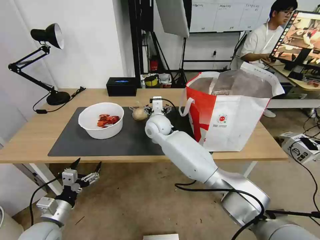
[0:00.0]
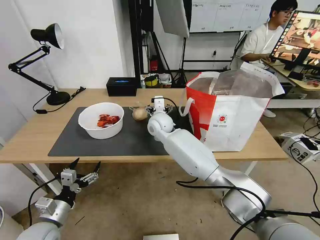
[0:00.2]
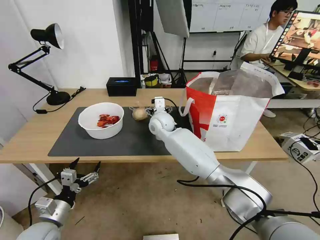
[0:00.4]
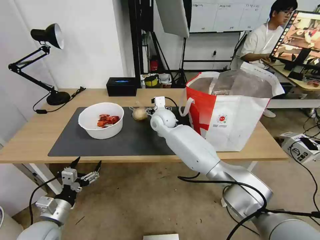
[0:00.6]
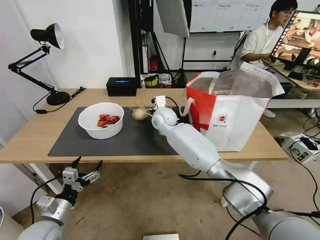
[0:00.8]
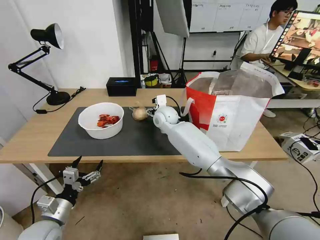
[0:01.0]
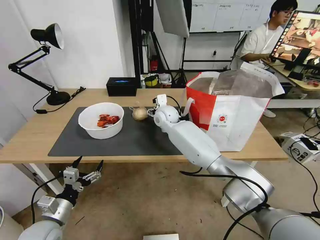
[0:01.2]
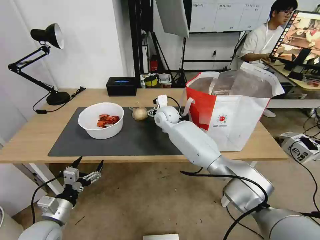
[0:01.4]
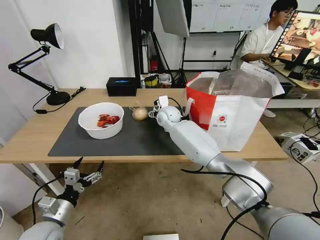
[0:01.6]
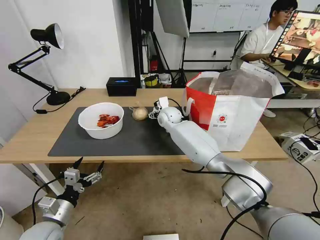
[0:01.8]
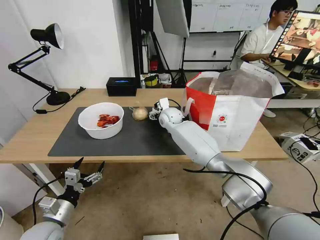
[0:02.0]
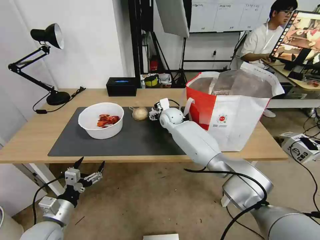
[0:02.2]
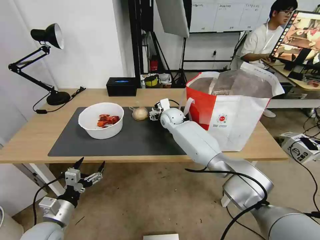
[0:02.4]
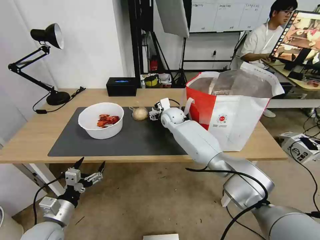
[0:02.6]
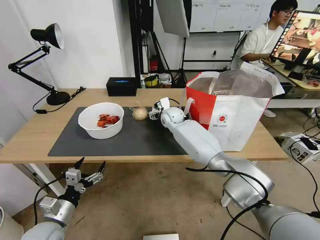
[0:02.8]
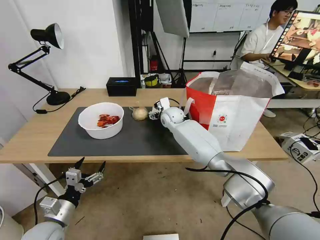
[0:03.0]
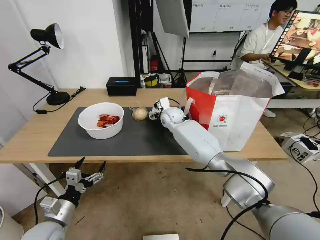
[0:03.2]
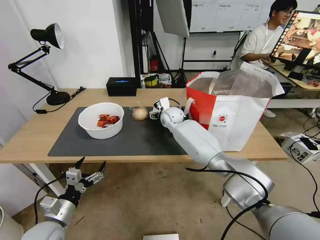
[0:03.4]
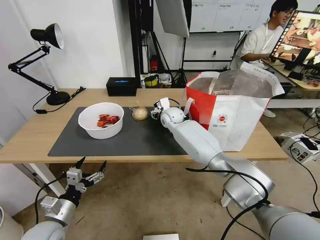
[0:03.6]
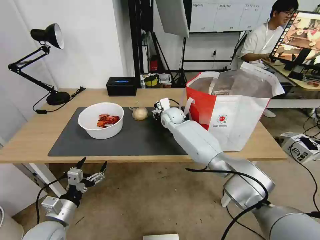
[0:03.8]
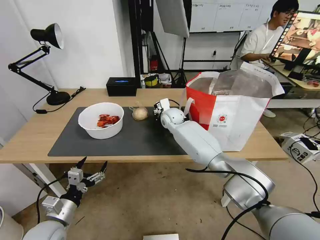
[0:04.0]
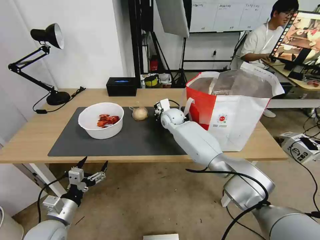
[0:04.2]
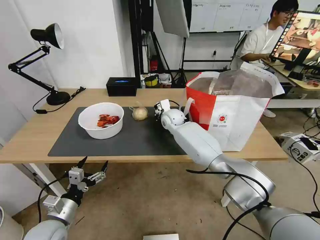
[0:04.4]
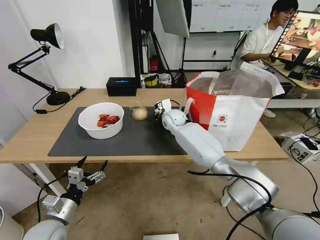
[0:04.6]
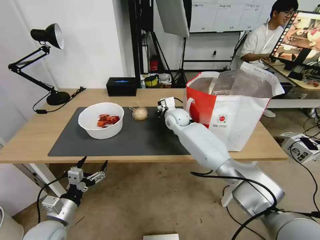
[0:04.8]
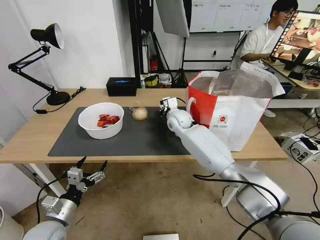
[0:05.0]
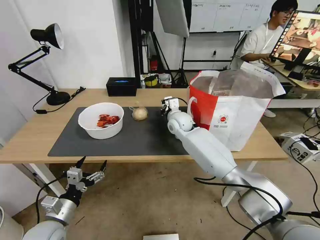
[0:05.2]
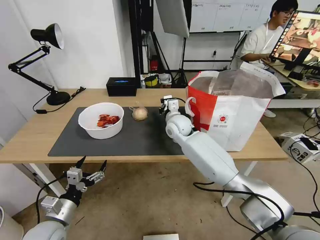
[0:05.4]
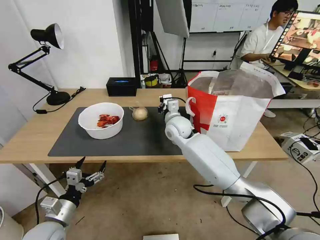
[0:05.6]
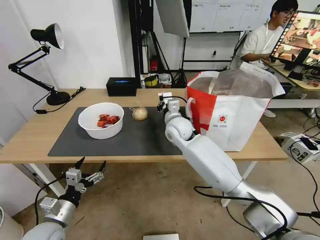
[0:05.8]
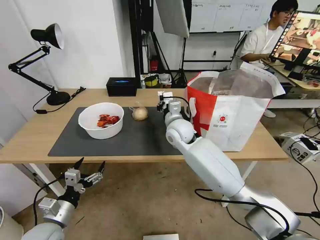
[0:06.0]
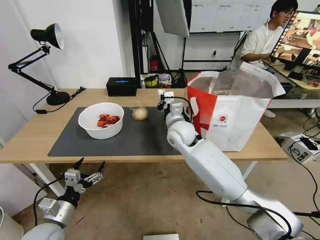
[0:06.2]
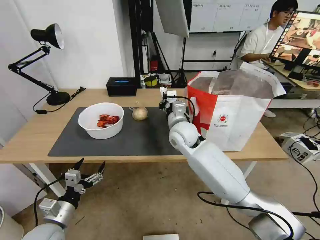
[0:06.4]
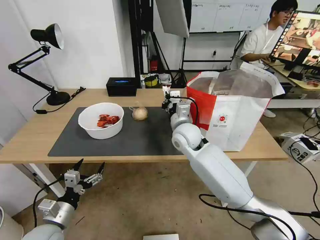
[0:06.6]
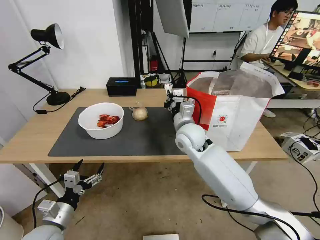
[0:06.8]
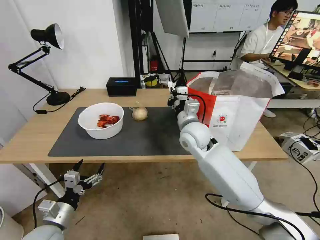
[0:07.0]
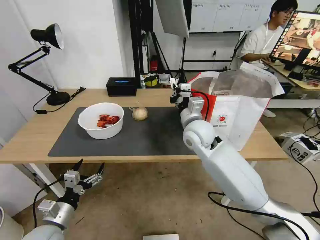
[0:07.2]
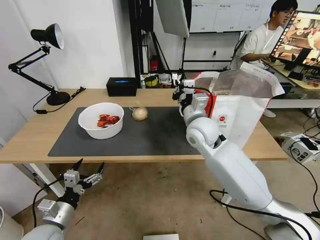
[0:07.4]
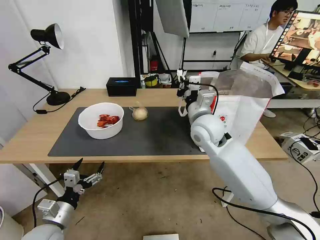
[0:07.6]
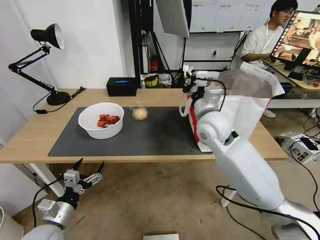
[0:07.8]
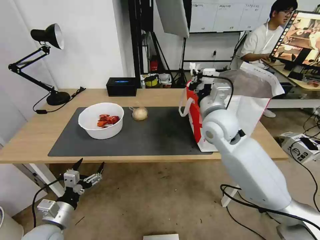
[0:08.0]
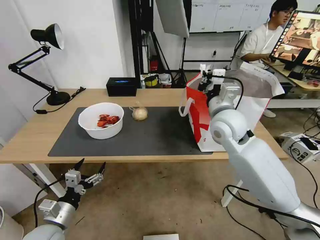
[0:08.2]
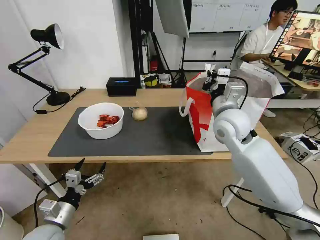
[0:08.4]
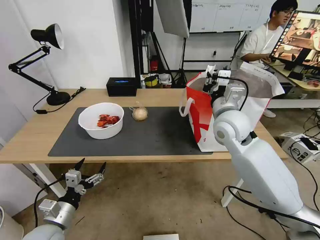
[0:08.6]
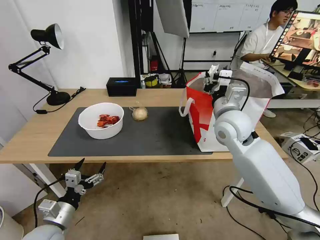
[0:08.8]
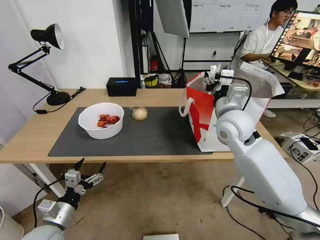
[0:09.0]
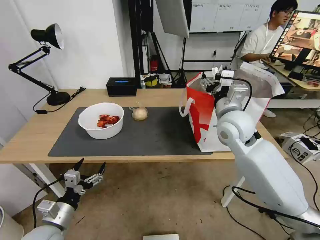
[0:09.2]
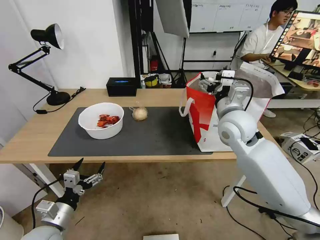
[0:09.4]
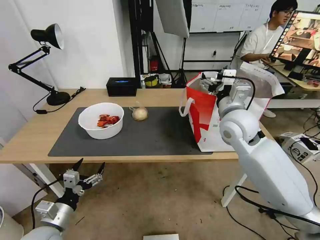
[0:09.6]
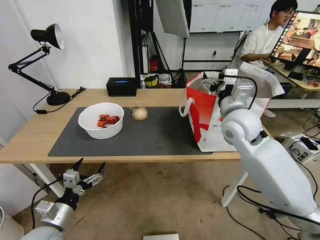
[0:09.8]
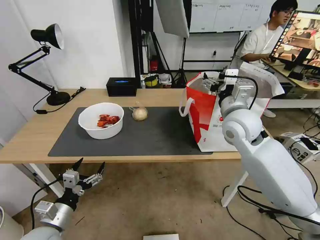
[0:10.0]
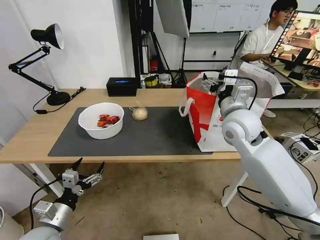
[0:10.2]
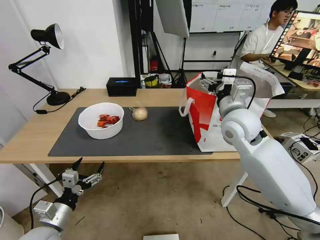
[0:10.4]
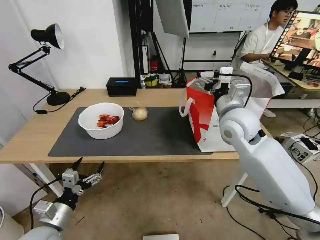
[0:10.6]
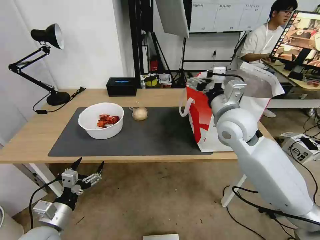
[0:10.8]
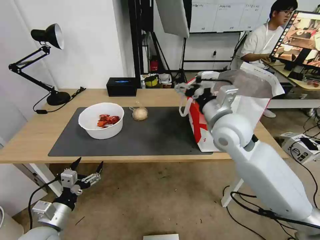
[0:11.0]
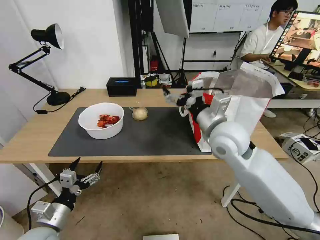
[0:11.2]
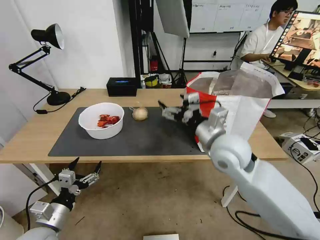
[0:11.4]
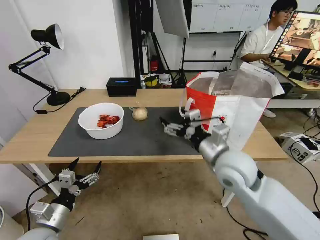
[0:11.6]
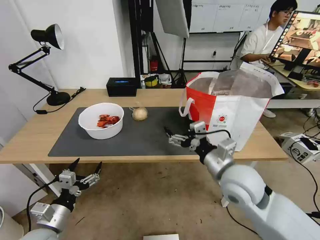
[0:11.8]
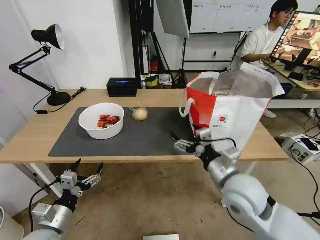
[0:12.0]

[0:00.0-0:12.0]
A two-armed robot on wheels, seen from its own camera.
Task of the whole recording: Pick up the trash from the table and place it into the takeout bag.
0:00.0 to 0:01.6: The right gripper travels forward by approximately 5 cm.
0:01.6 to 0:03.0: The grippers make only small movements.
0:03.0 to 0:04.4: The right gripper closes.
0:04.4 to 0:06.0: The right gripper heads backward, covering some 10 cm.
0:06.0 to 0:07.6: The right gripper shifts approximately 10 cm to the right and upward.
0:07.6 to 0:09.0: The right gripper heads to the right, covering approximately 5 cm, and opens.
0:09.0 to 0:10.4: The right gripper opens.
0:10.4 to 0:12.0: The right gripper moves backward and downward, roughly 20 cm.

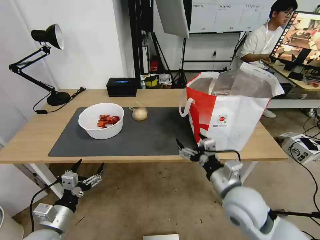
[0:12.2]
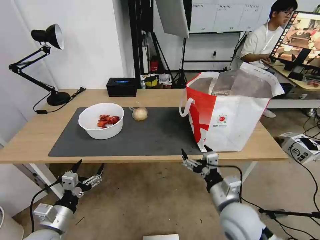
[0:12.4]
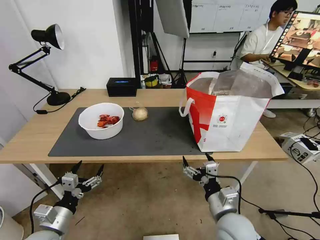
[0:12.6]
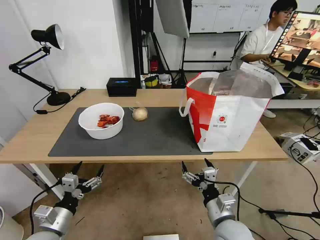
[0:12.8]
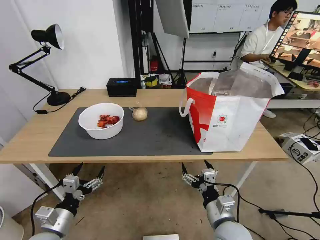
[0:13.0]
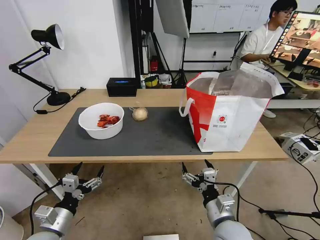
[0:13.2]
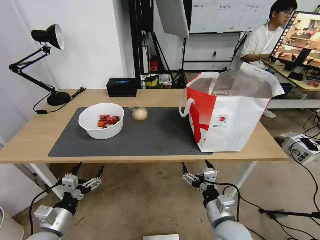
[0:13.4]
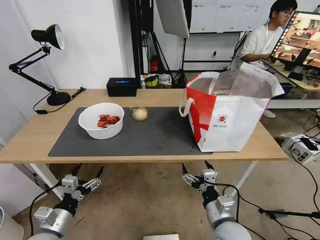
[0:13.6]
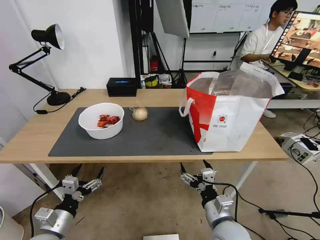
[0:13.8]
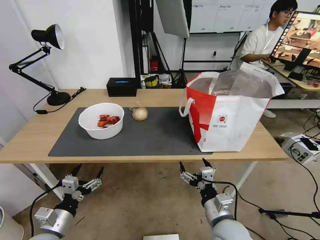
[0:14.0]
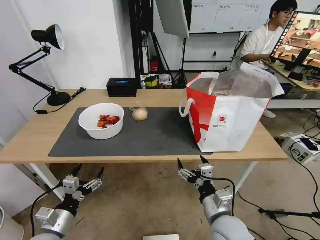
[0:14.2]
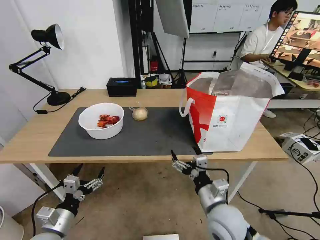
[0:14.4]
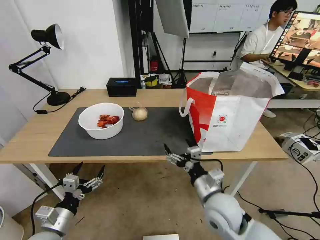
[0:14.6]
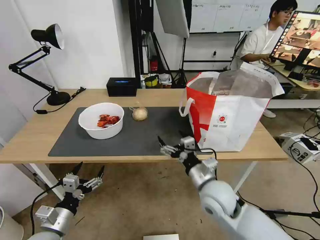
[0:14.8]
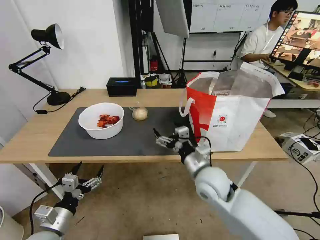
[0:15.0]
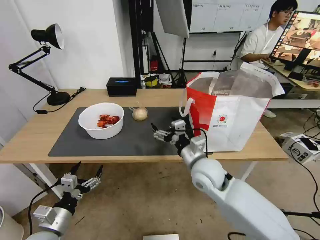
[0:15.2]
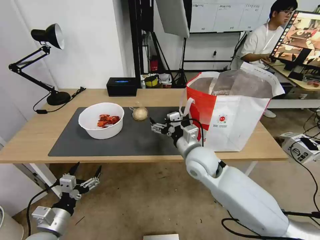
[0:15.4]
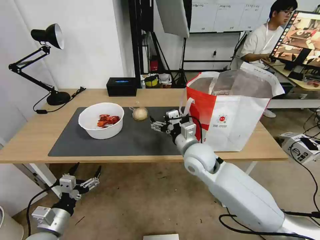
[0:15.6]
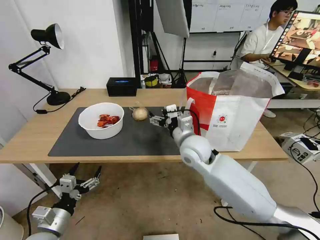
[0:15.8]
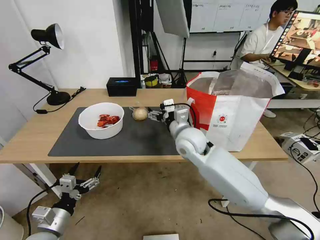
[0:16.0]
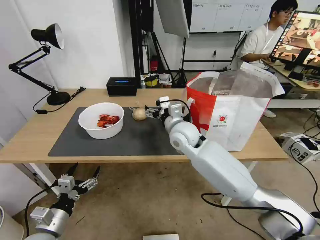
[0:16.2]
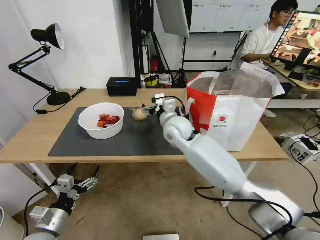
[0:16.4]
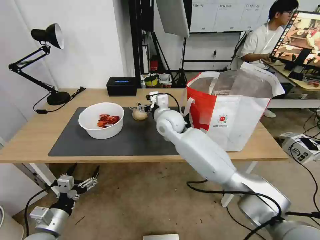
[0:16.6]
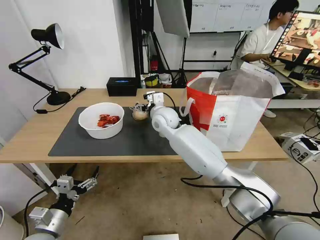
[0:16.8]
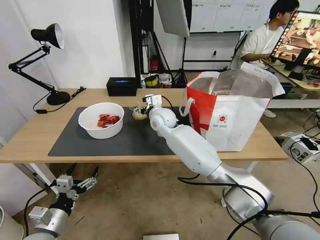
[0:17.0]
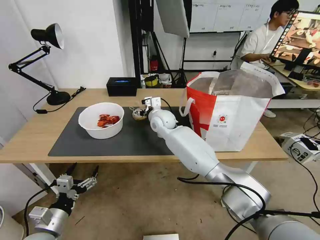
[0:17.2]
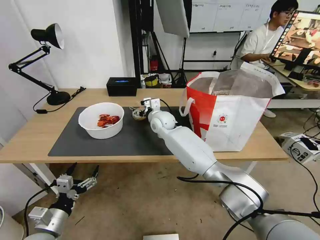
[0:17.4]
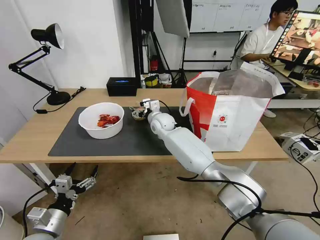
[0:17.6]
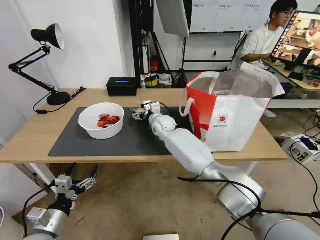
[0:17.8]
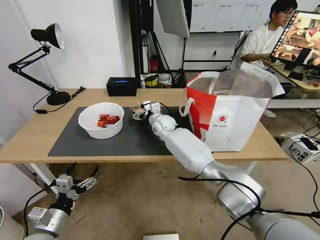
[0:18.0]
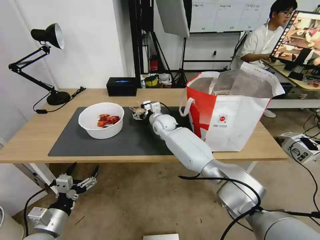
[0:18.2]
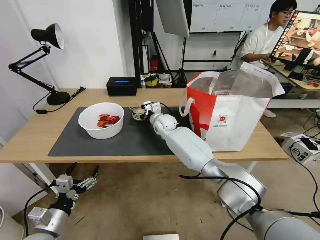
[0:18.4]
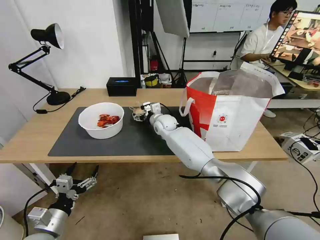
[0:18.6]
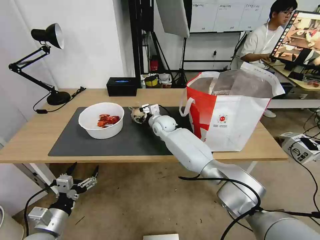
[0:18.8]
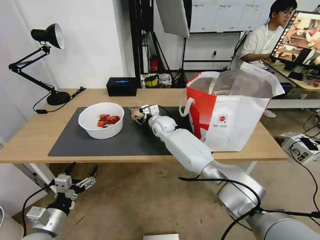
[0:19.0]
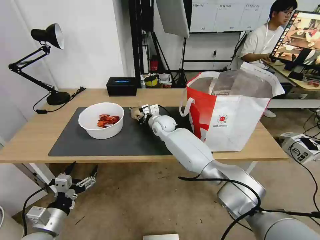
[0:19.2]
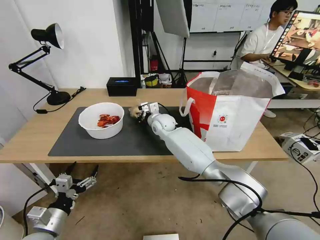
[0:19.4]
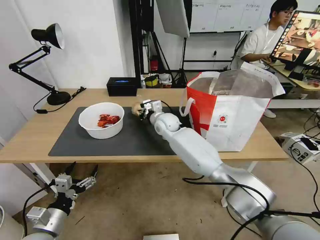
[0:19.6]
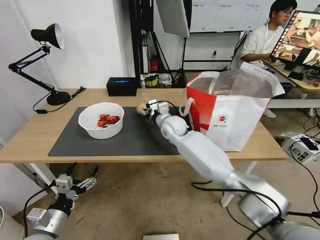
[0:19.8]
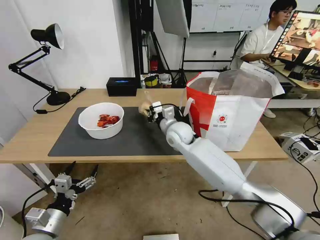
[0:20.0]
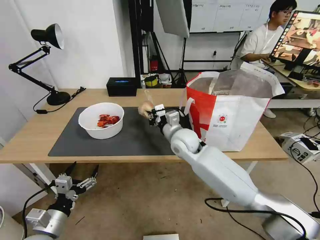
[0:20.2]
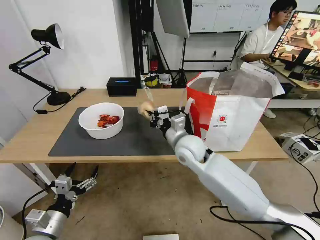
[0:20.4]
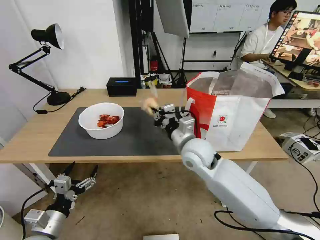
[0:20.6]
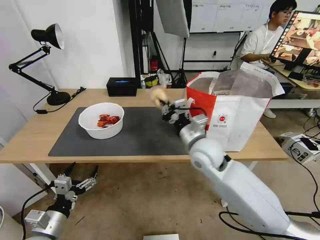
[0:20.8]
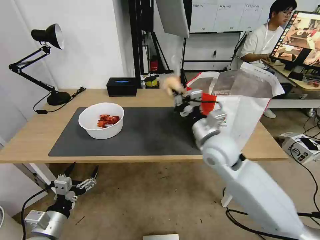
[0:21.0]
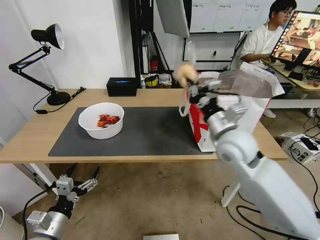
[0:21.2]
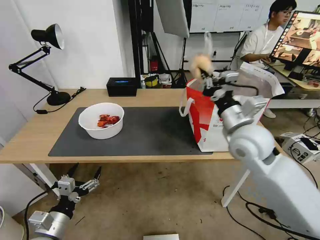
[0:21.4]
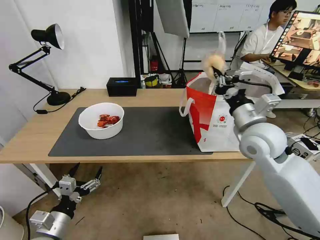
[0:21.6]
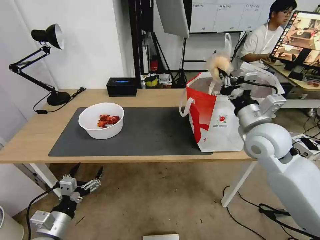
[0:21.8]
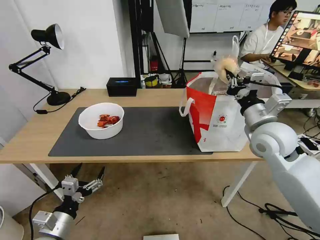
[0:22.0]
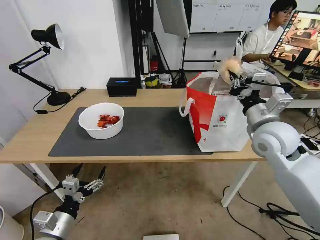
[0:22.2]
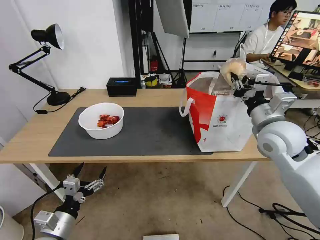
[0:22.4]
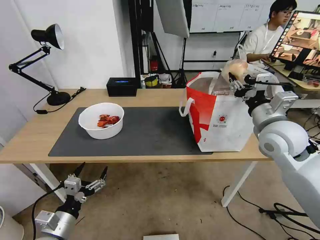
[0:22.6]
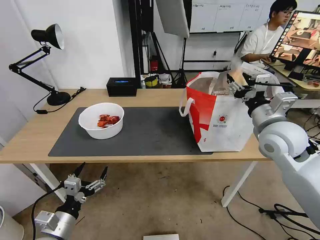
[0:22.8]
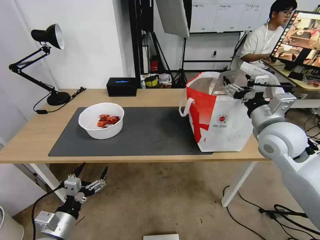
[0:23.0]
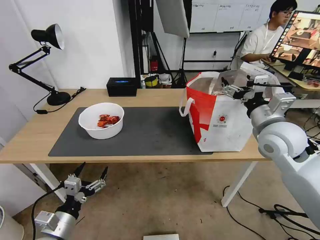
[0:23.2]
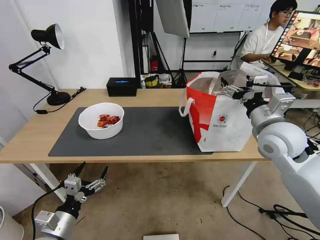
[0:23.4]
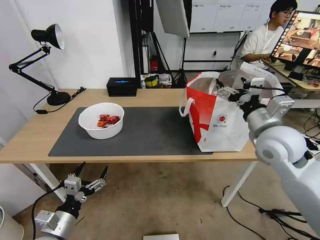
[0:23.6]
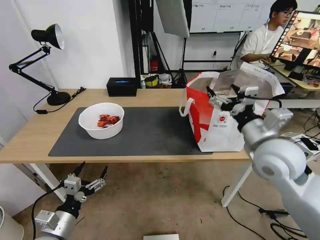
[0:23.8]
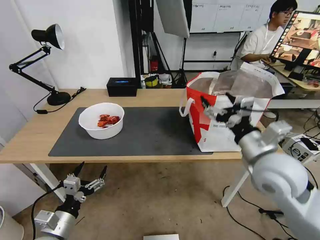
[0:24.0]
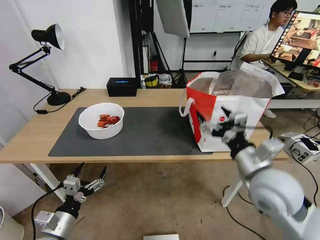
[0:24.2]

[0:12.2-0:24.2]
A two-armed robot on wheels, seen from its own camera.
Task of the whole recording: Pick up the trash from the table and place it into the takeout bag.
0:12.2 to 0:13.8: The right gripper is displaced downward and backward by approximately 10 cm.
0:13.8 to 0:15.2: The right gripper heads forward and upward, covering some 20 cm.
0:15.2 to 0:16.6: The right gripper is displaced forward and to the left by about 20 cm.
0:16.6 to 0:18.2: The right gripper is displaced forward and downward by approximately 10 cm.
0:18.2 to 0:19.8: The right gripper moves approximately 5 cm, and closes up.
0:19.8 to 0:21.2: The right gripper moves backward, to the right and upward, about 25 cm.
0:21.2 to 0:22.6: The right gripper travels to the right by some 10 cm, and opens up.
0:22.6 to 0:24.2: The right gripper is displaced backward, to the left and downward by about 15 cm, and opens.
